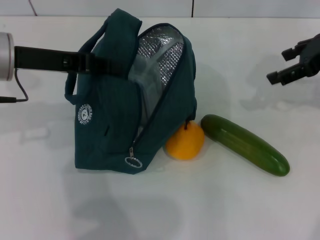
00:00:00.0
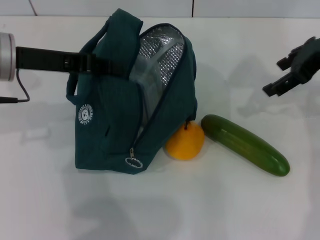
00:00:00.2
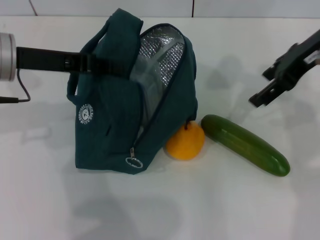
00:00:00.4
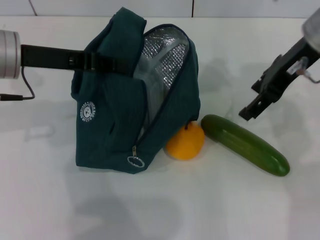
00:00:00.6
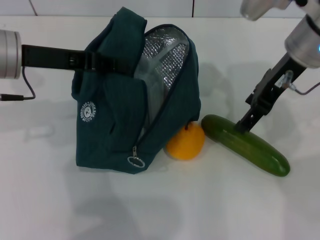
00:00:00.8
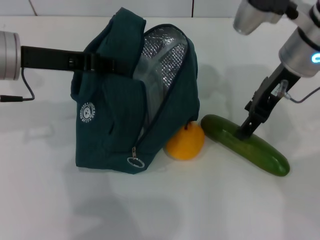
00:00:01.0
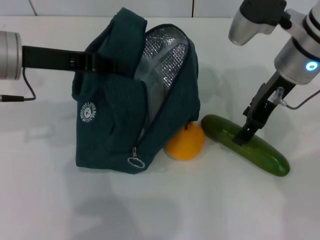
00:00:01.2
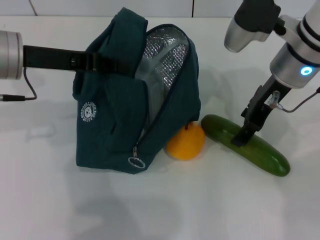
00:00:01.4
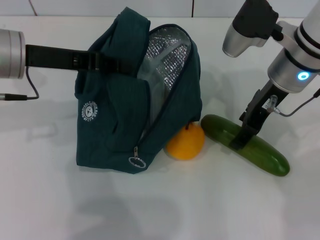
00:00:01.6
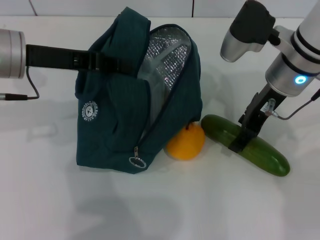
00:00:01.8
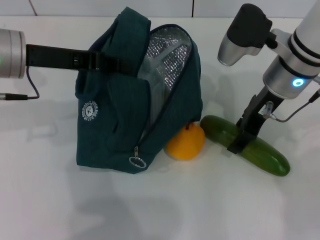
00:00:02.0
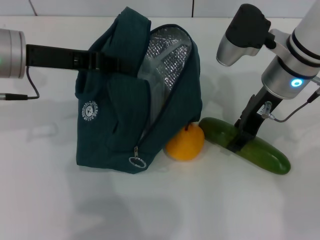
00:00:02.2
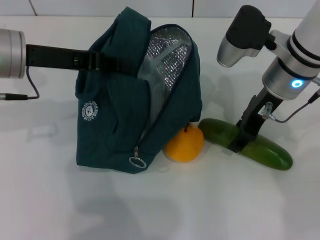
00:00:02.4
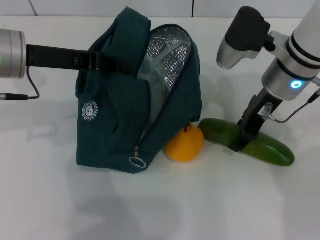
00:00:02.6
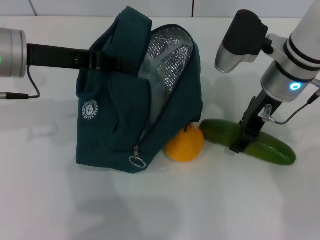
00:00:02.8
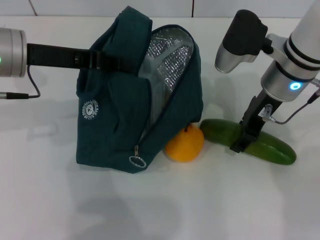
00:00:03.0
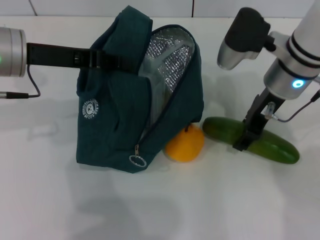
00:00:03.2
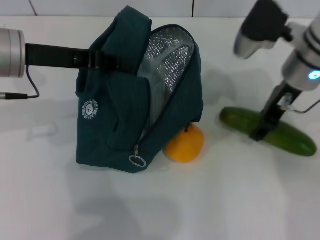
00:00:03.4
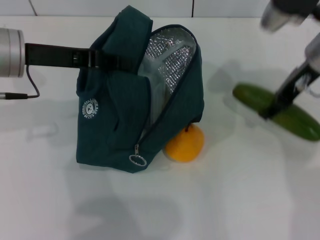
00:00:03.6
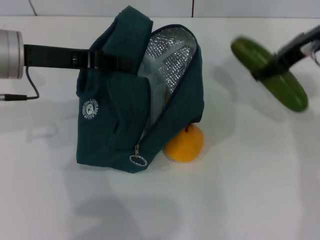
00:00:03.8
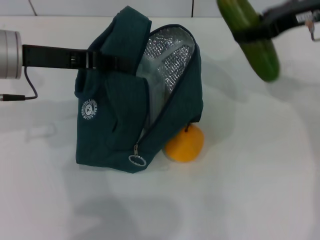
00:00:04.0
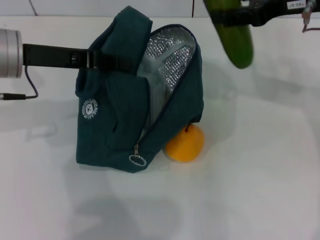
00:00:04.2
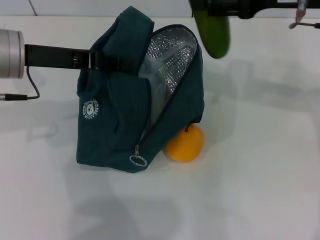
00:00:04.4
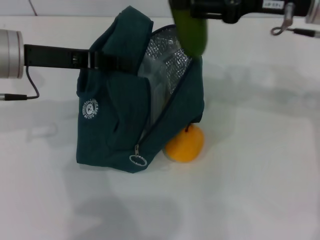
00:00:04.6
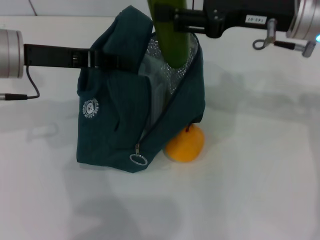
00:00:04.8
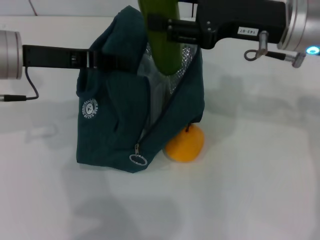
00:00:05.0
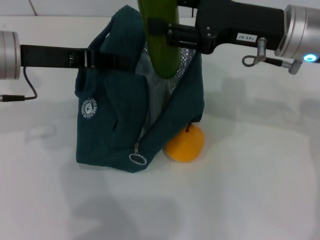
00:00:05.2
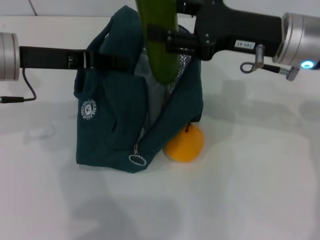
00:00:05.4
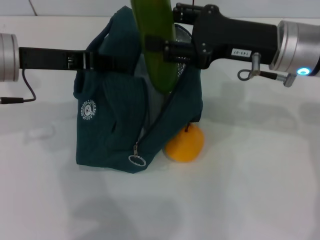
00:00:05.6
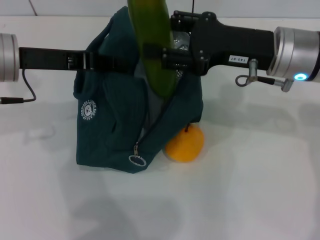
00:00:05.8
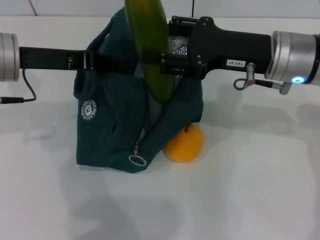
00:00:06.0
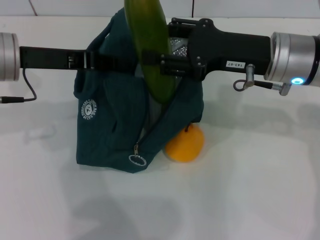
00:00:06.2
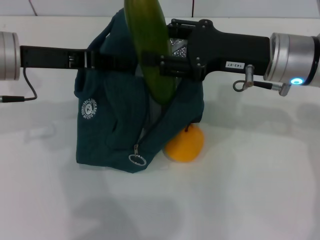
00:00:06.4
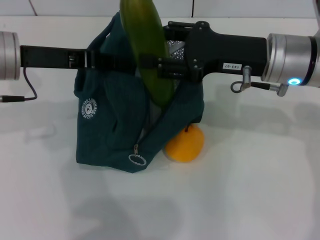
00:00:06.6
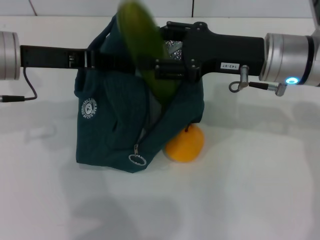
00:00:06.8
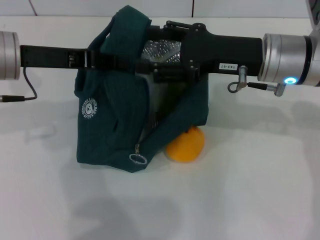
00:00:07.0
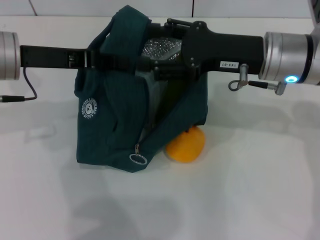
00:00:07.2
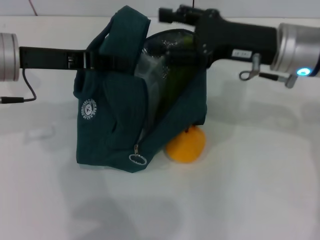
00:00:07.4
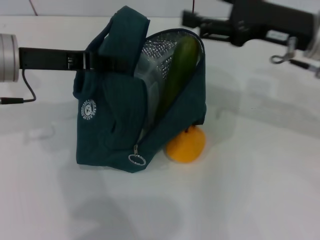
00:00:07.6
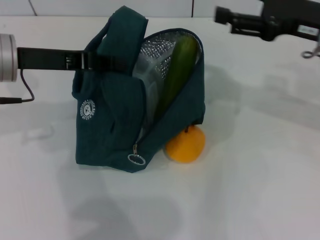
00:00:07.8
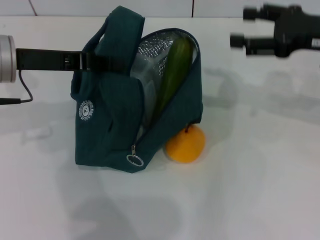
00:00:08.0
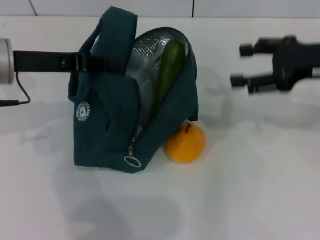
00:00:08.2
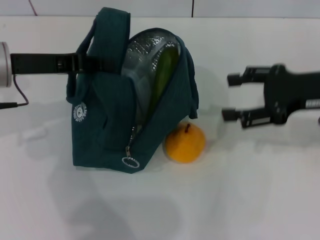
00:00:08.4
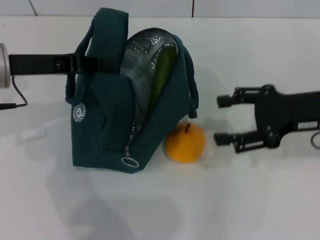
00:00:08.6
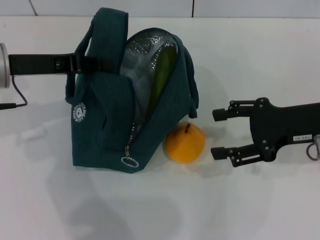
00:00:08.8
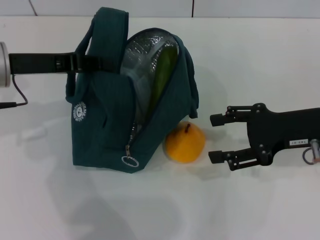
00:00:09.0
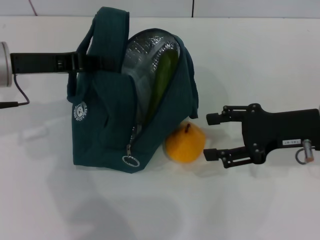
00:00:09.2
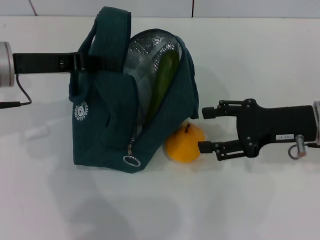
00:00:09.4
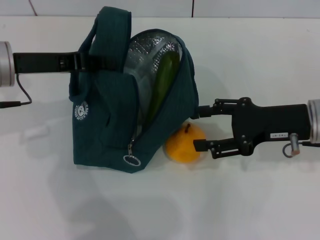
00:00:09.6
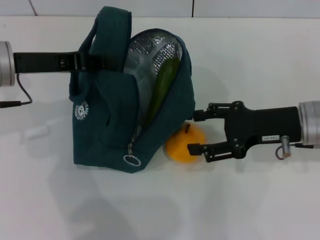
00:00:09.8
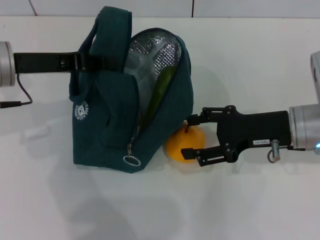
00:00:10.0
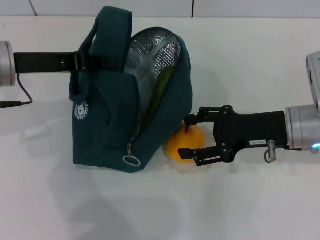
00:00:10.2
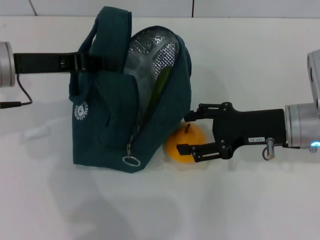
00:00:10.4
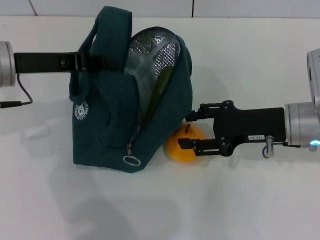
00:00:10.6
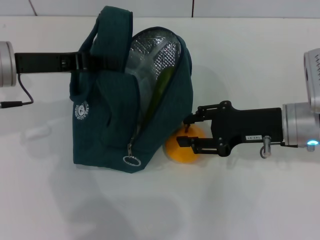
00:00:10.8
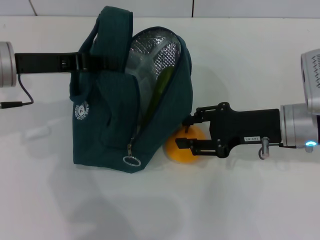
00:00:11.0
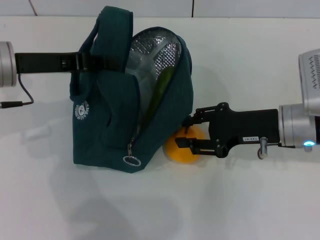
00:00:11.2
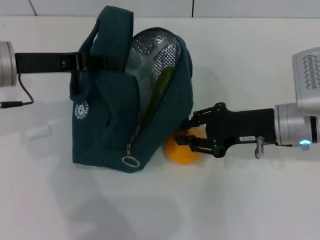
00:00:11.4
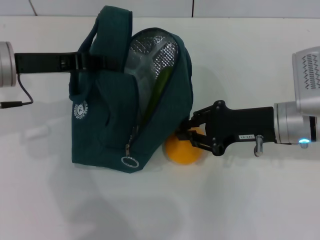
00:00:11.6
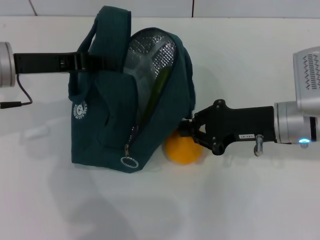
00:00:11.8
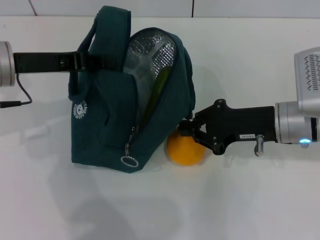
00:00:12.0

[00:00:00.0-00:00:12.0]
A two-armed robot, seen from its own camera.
Step, 00:00:00.0 to 00:00:03.2: Pick up the cucumber with your right hand.
Step, 00:00:03.4 to 00:00:07.2: Put the cucumber into the lunch bag with your right hand.
Step, 00:00:07.4 to 00:00:11.8: Grab the pear with your right hand.
00:00:00.0 to 00:00:01.6: The right gripper travels to the left by some 15 cm.
00:00:01.6 to 00:00:03.0: The grippers move only a little.
00:00:03.0 to 00:00:04.4: The right gripper travels upward and to the right by roughly 10 cm.
00:00:04.4 to 00:00:06.0: The right gripper goes about 10 cm downward.
00:00:06.0 to 00:00:07.6: The grippers move only a little.
00:00:07.6 to 00:00:09.0: The right gripper moves backward and downward, some 10 cm.
00:00:09.0 to 00:00:10.4: The right gripper shifts by some 5 cm.
00:00:10.4 to 00:00:12.0: The right gripper closes its fingers.

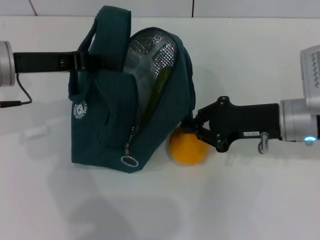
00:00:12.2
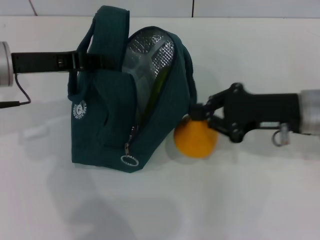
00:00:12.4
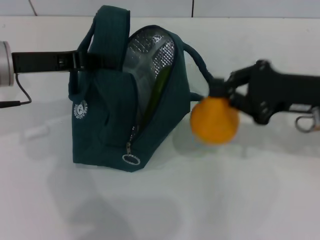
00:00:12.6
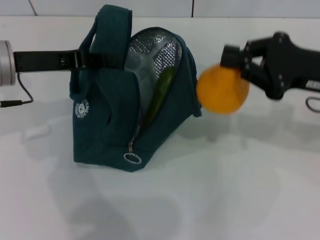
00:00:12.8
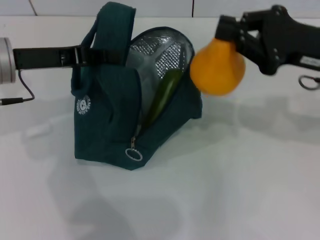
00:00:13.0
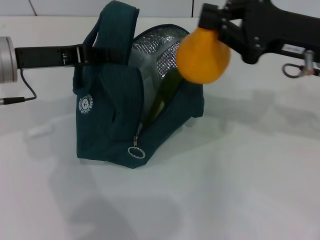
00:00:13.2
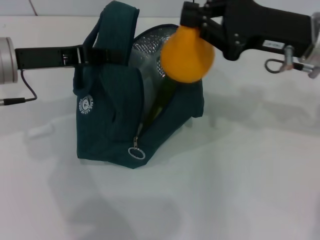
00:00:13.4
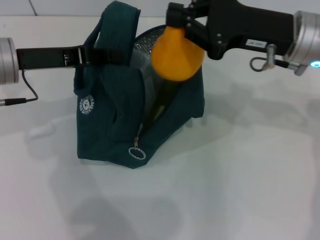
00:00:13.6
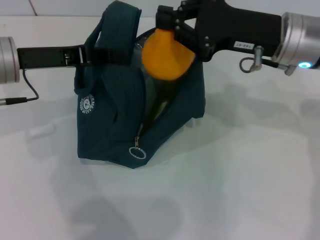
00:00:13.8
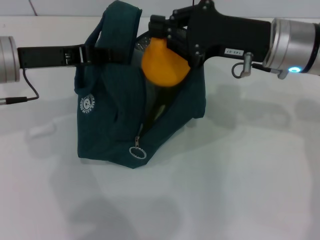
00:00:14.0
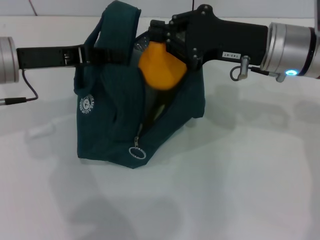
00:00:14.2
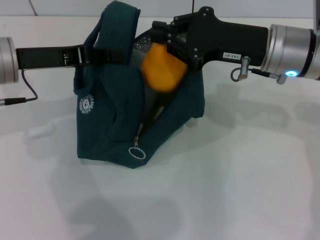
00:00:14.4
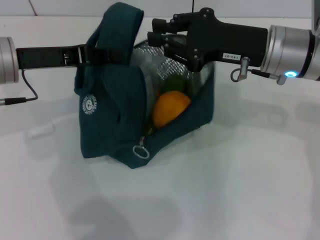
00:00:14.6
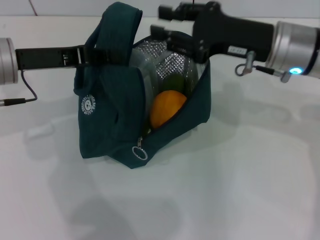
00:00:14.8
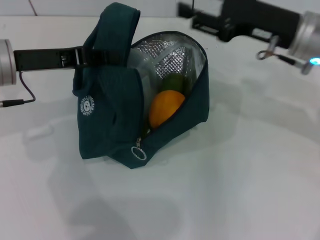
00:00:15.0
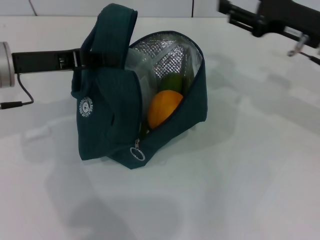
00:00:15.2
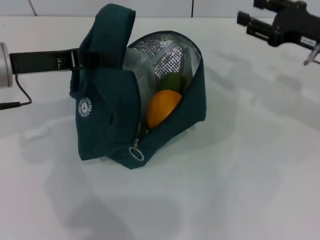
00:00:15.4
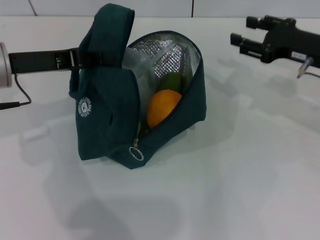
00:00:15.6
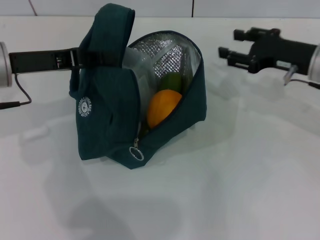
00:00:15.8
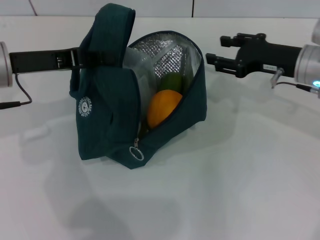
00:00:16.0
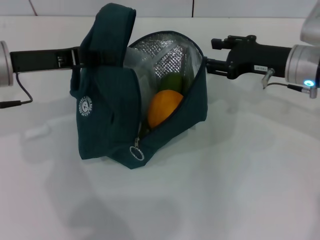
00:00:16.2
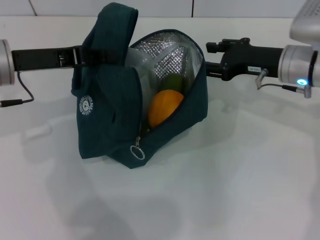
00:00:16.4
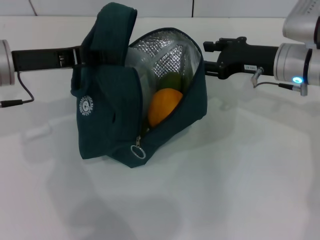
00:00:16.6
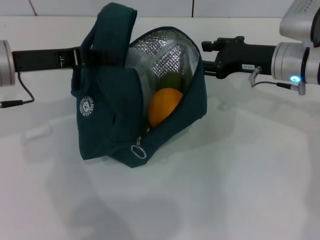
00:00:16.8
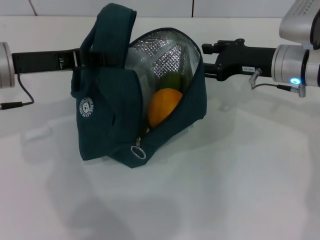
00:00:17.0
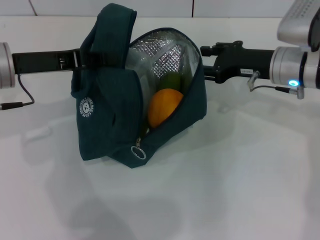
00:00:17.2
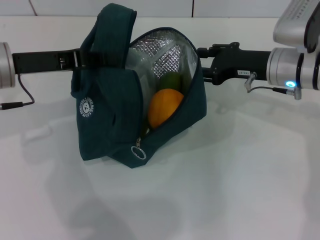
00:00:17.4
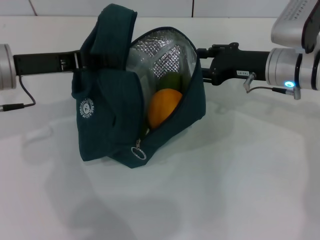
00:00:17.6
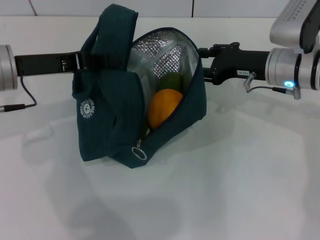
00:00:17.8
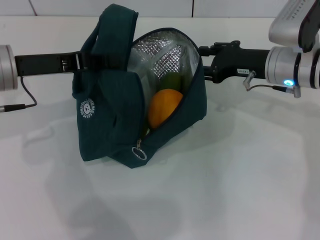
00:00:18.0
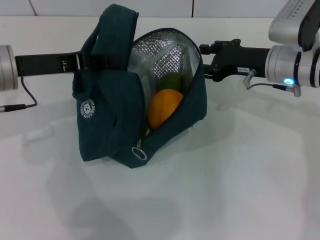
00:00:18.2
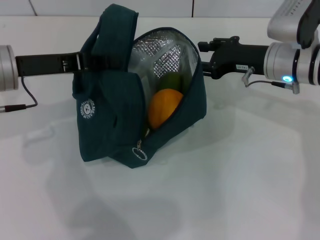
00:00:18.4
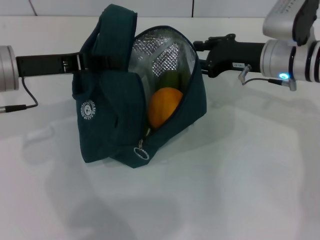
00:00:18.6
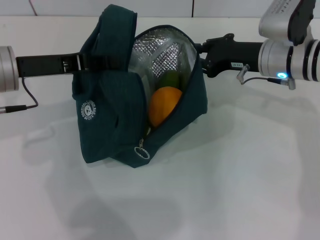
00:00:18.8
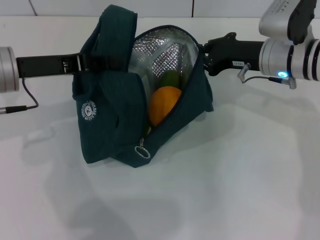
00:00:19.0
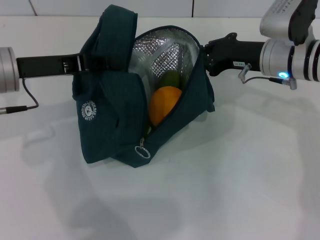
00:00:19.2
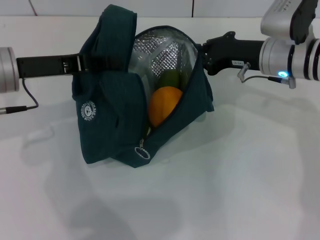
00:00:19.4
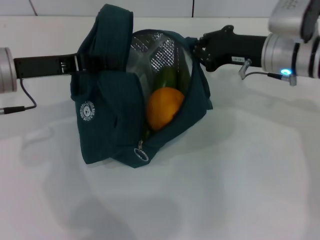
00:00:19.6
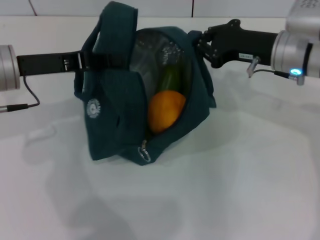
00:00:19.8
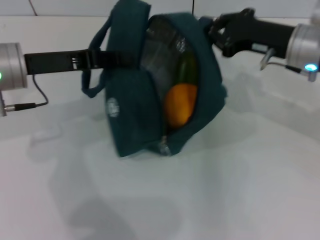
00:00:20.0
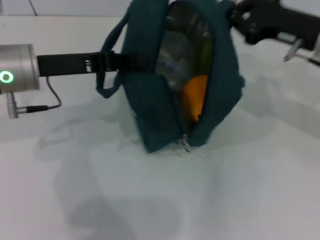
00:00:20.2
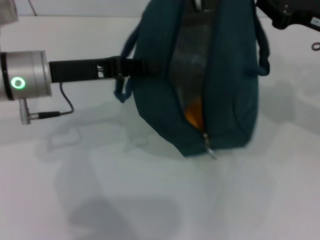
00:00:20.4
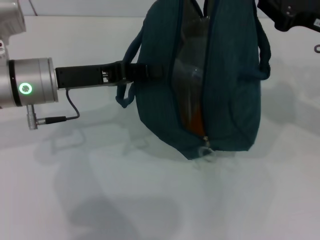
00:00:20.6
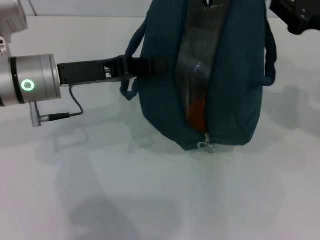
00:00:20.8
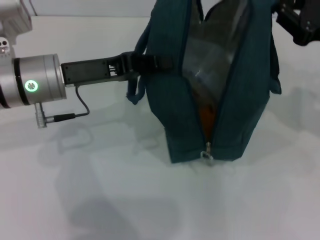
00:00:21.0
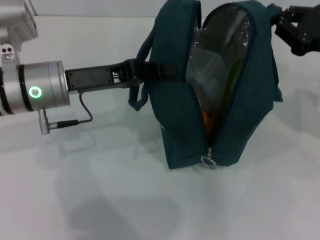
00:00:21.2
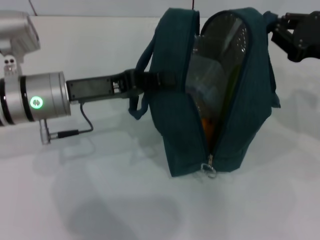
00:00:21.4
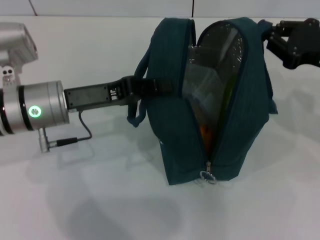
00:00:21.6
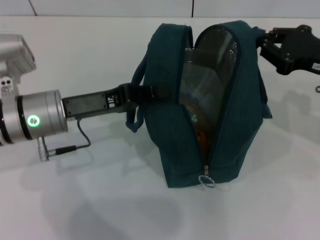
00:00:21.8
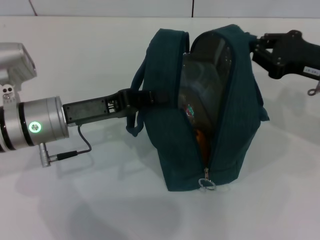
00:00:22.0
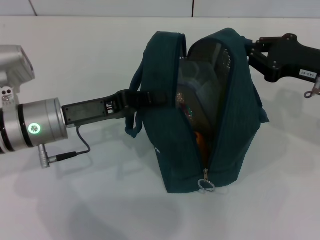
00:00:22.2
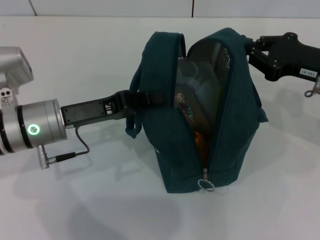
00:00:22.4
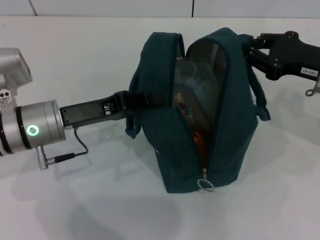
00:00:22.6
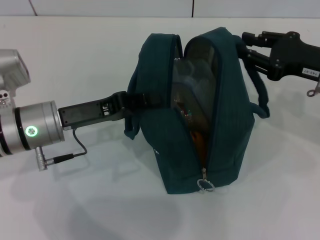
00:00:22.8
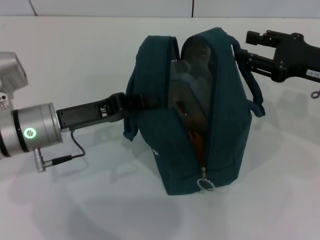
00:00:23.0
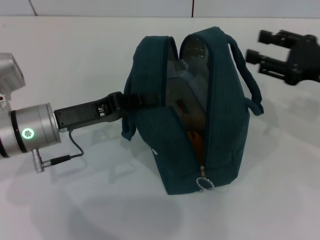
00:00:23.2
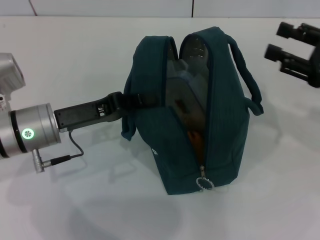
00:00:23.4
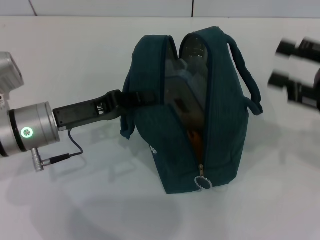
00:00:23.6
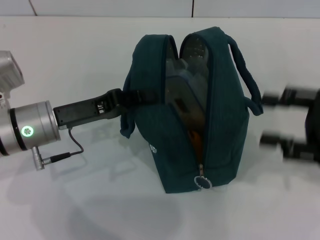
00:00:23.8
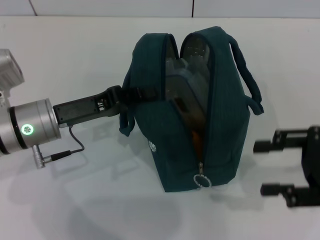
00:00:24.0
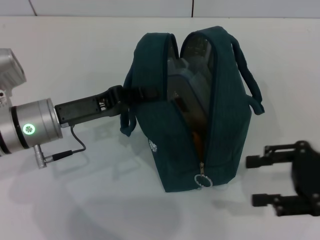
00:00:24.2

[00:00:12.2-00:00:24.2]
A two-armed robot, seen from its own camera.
Step, 00:00:16.6 to 00:00:23.2: Hold the lunch bag with your right hand.
00:00:12.2 to 00:00:13.8: The right gripper is displaced upward by about 10 cm.
00:00:13.8 to 00:00:15.2: The right gripper travels to the right by roughly 5 cm, and opens up.
00:00:15.2 to 00:00:16.6: The right gripper ends up approximately 5 cm from where it was.
00:00:16.6 to 00:00:18.2: Both grippers stay put.
00:00:18.2 to 00:00:19.8: The right gripper closes its fingers.
00:00:19.8 to 00:00:21.2: The left gripper shifts about 5 cm to the right. Meanwhile the right gripper shifts some 10 cm to the right.
00:00:21.2 to 00:00:22.6: The left gripper changes place by about 5 cm.
00:00:22.6 to 00:00:24.2: The right gripper heads backward, covering roughly 10 cm, and opens up.
